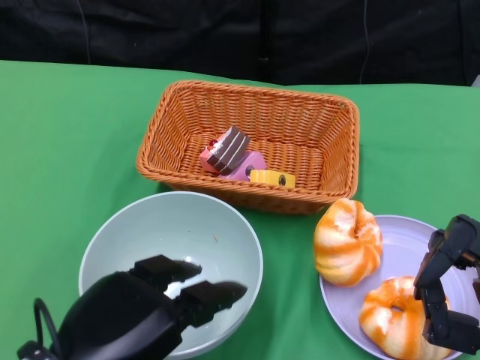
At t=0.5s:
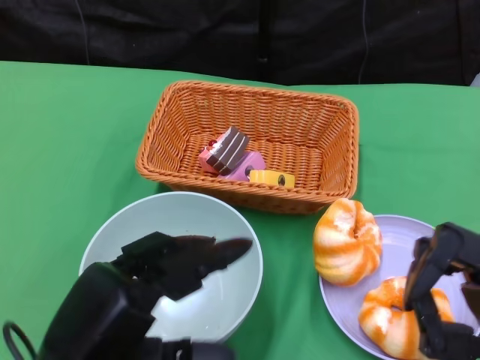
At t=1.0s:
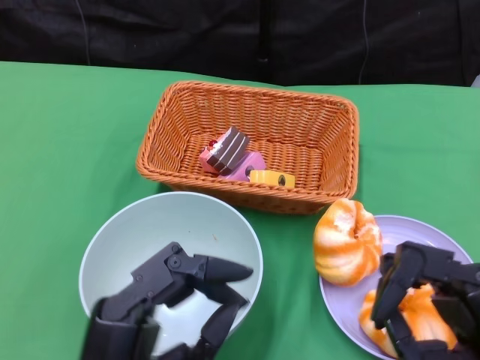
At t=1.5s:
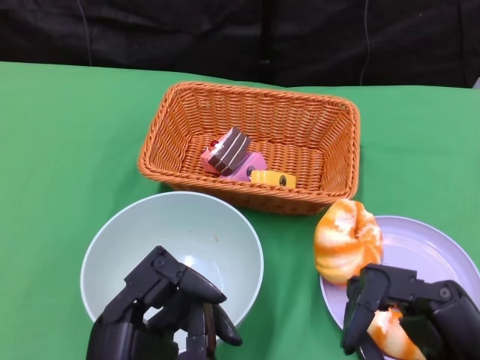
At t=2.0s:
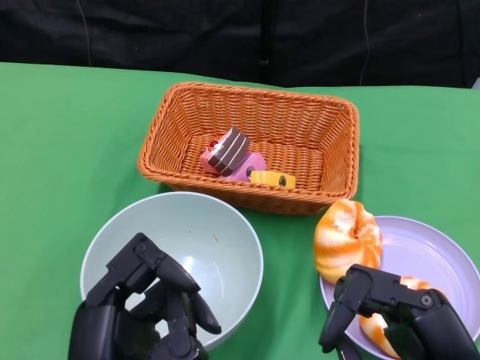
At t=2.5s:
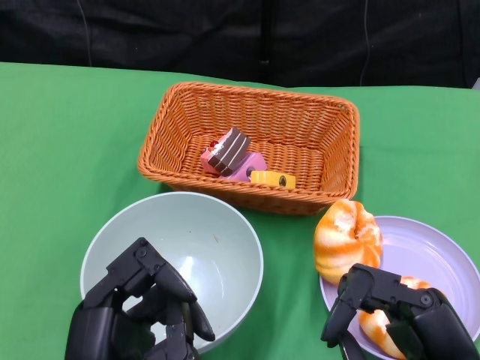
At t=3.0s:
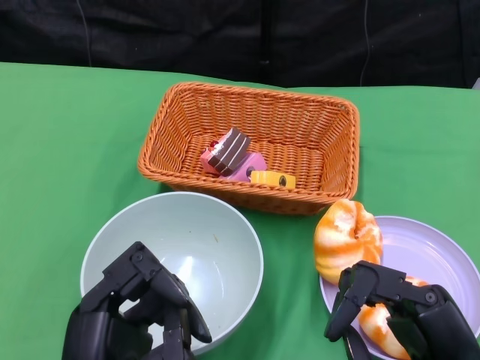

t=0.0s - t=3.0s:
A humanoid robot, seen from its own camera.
t=0.0s - t=1.5s: The left hand shifts roughly 5 cm to the right.
t=1.5s - t=3.0s: The hands move only a little.

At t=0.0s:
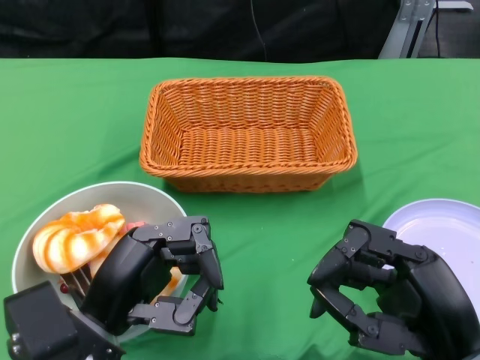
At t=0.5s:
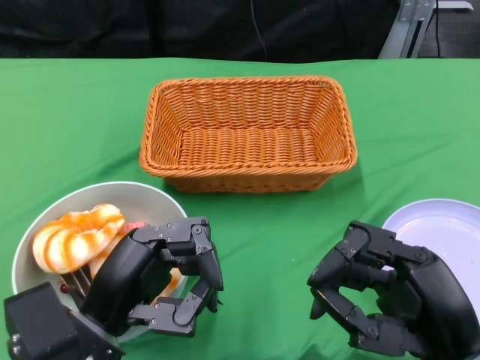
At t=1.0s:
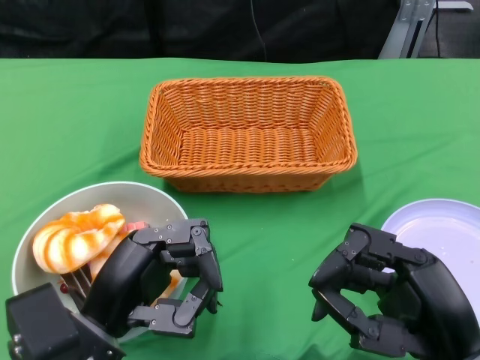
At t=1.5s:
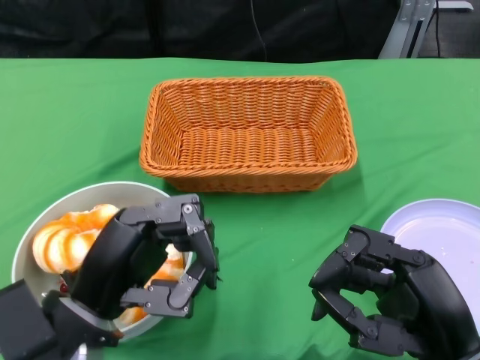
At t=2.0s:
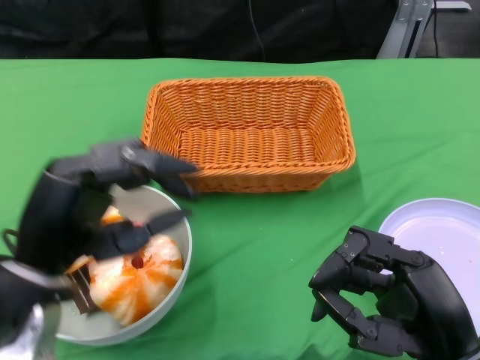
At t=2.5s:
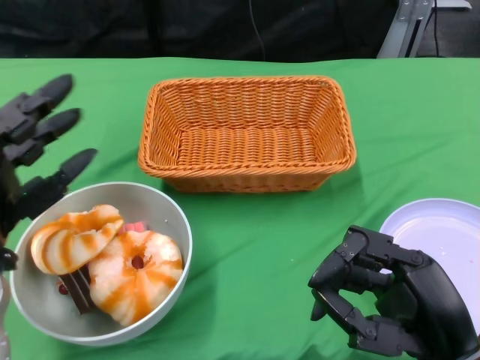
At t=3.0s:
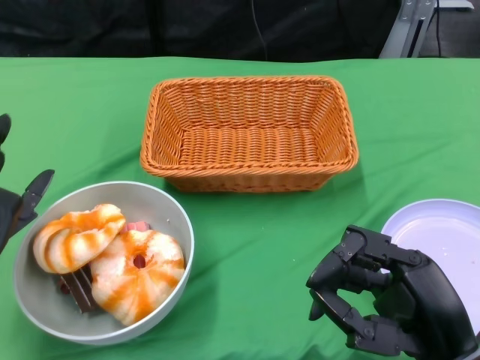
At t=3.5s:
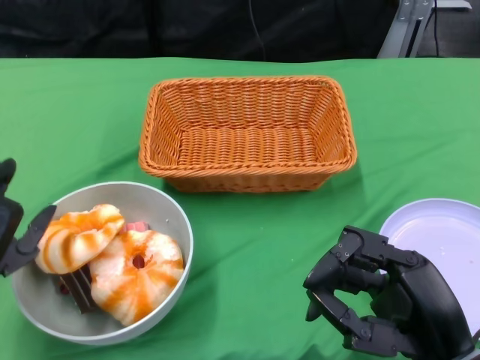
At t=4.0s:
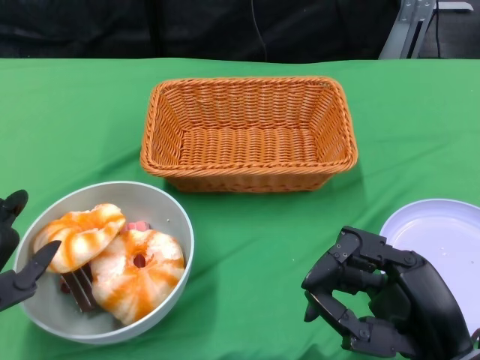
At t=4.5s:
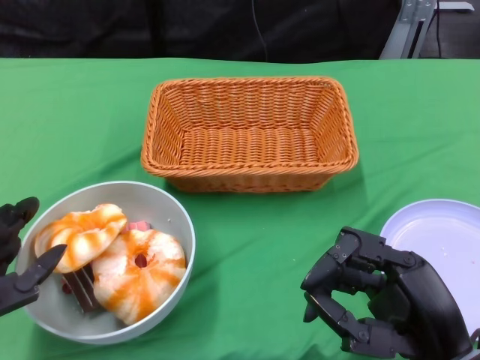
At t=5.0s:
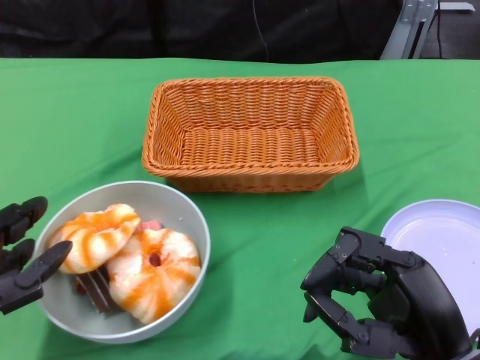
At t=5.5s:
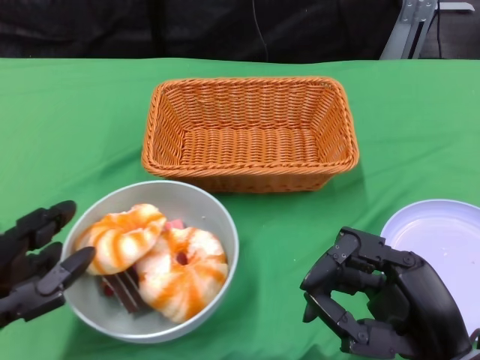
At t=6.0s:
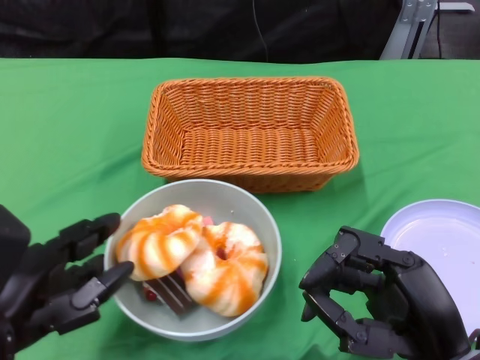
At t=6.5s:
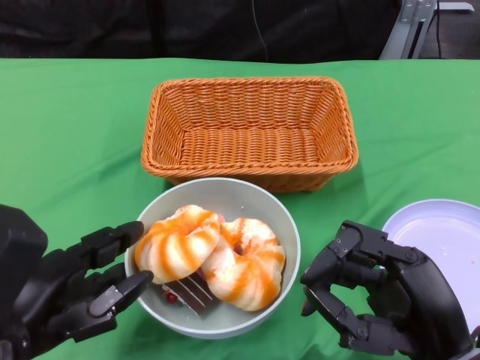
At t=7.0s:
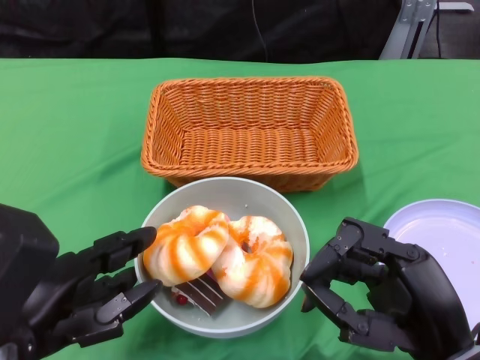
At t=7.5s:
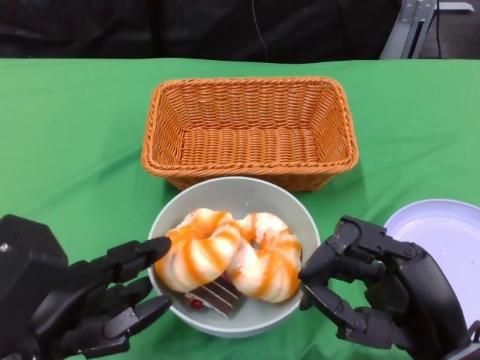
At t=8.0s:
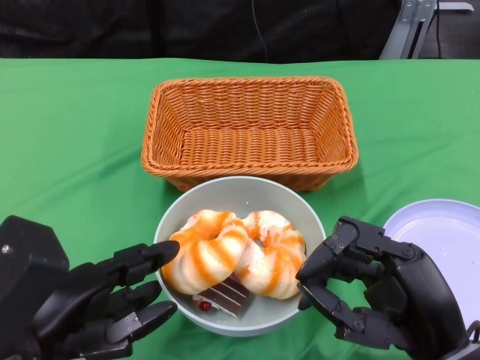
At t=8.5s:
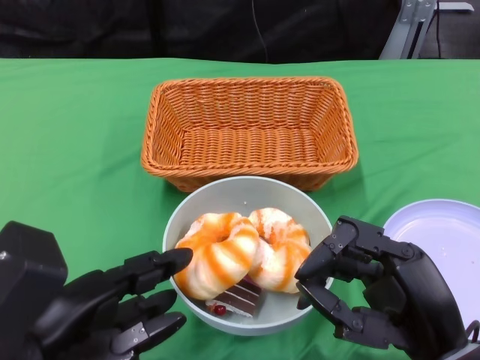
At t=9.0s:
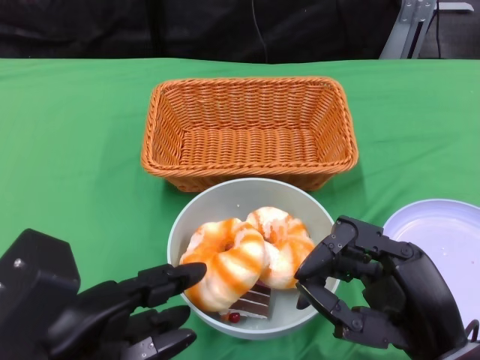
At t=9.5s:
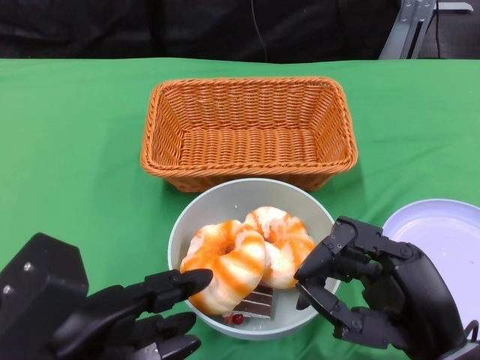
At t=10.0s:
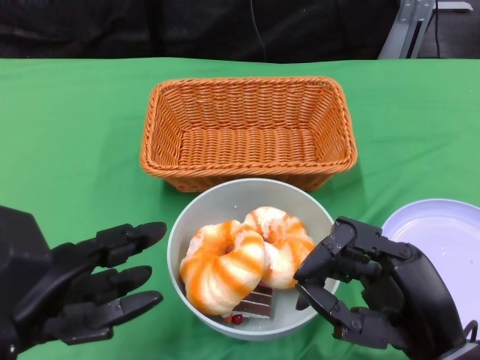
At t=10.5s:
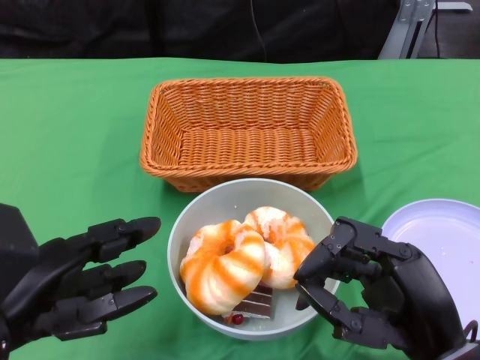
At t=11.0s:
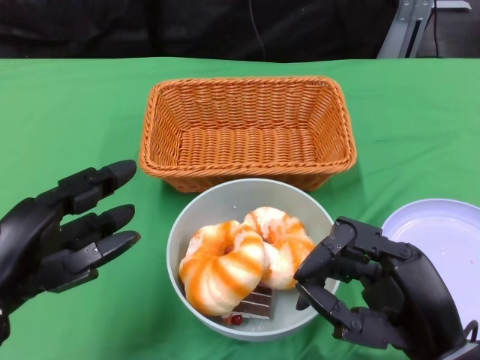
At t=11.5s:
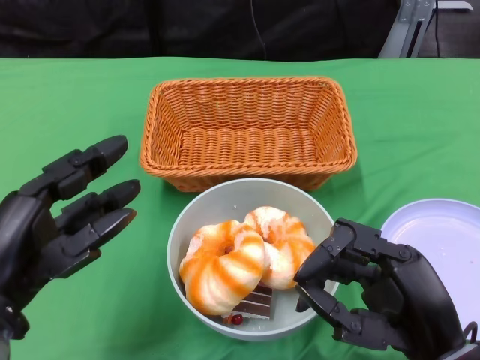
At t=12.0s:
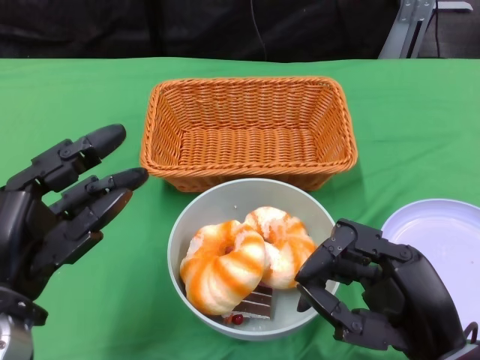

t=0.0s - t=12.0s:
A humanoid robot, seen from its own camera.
Step, t=0.0s - t=10.0s: Push the bowl to the center of the table using the left gripper.
t=2.0s - t=4.0s: The left hand moves to the left, roughly 5 cm.
t=8.0s - t=10.0s: There are only small adjustments of the hands.

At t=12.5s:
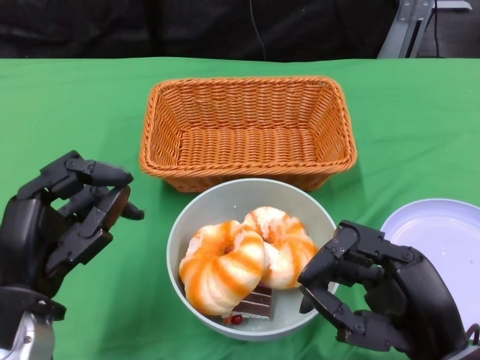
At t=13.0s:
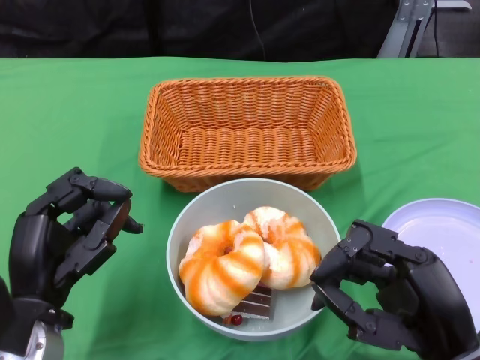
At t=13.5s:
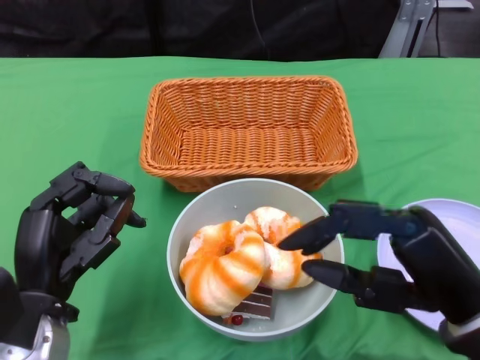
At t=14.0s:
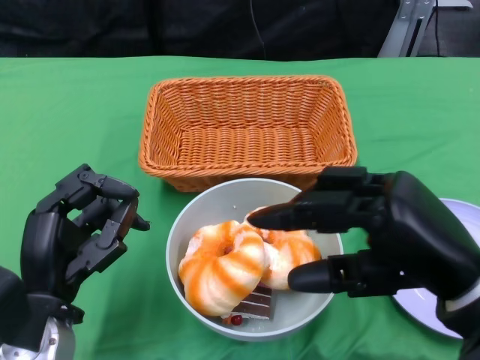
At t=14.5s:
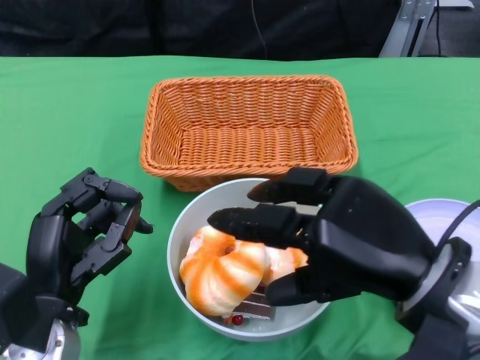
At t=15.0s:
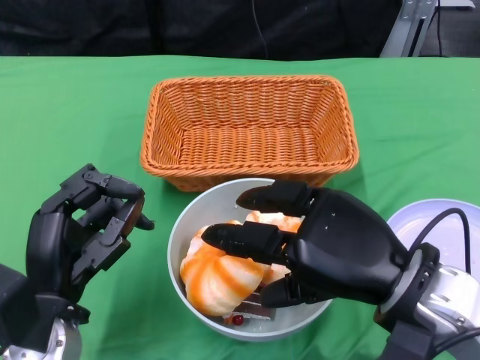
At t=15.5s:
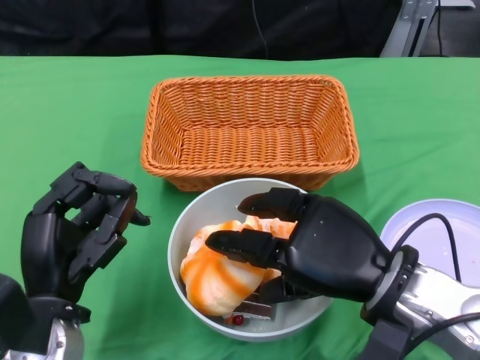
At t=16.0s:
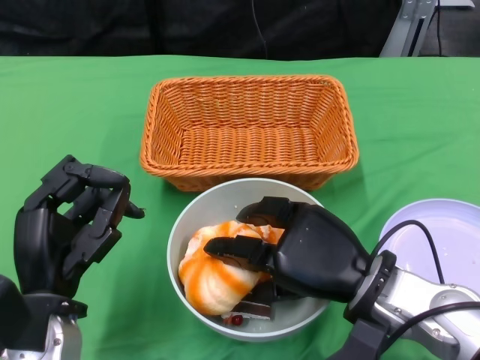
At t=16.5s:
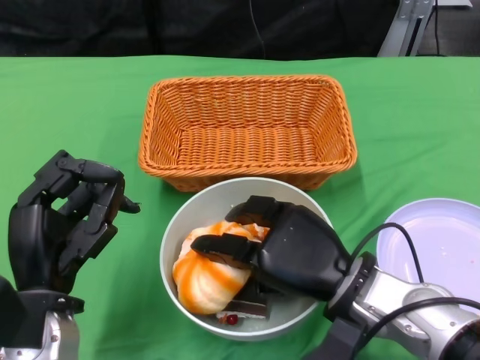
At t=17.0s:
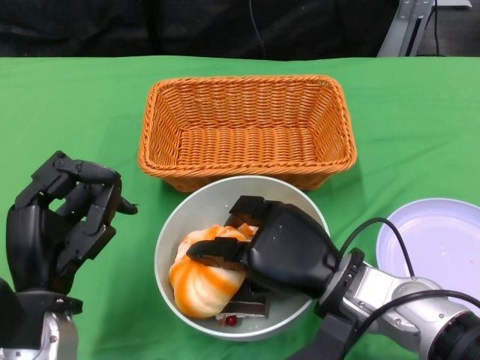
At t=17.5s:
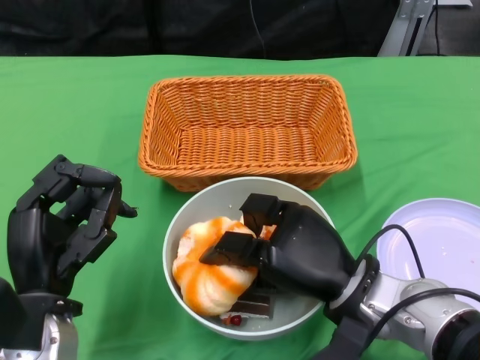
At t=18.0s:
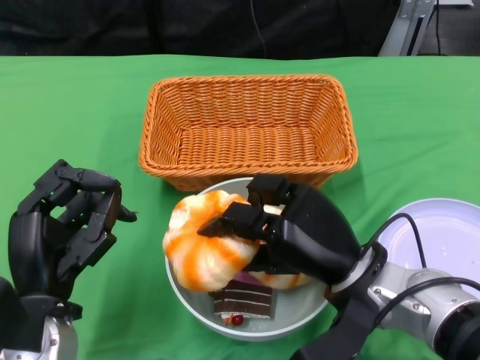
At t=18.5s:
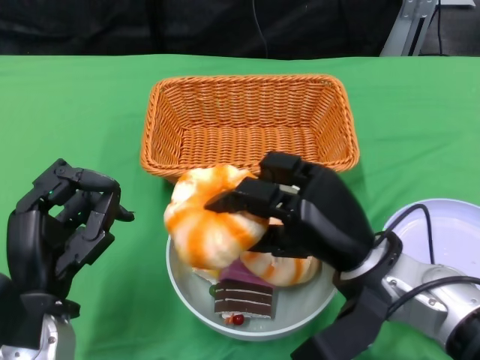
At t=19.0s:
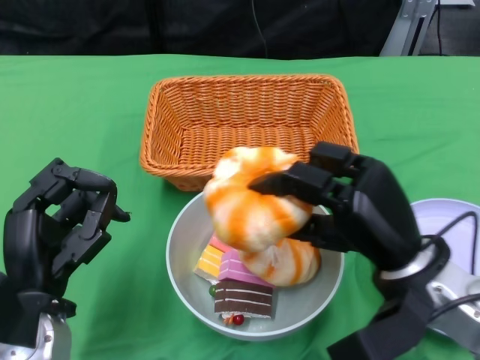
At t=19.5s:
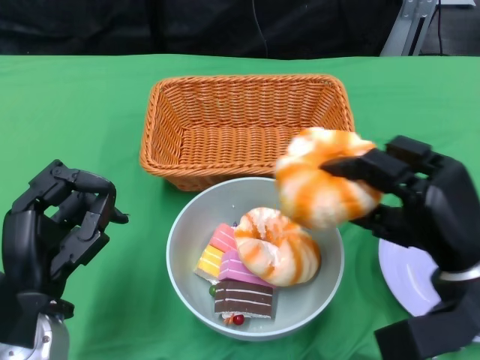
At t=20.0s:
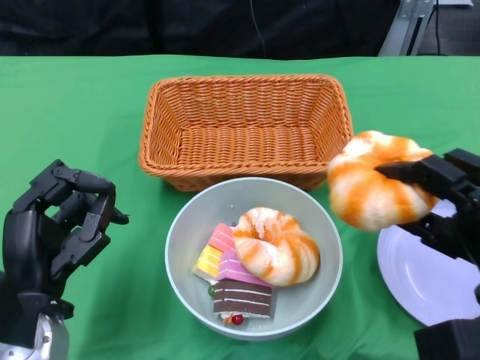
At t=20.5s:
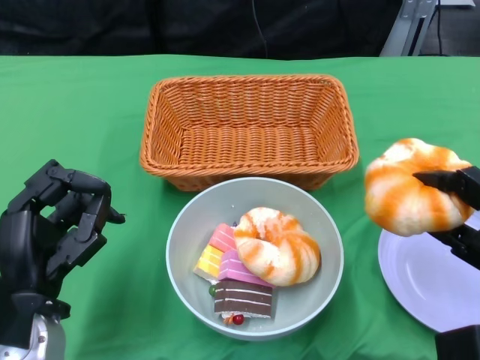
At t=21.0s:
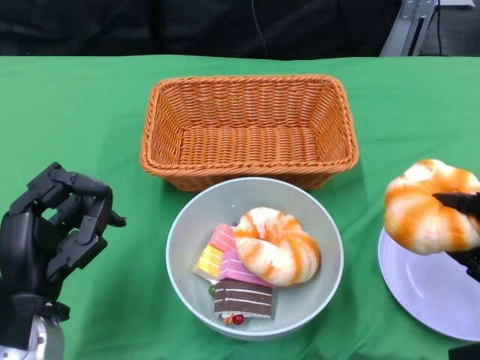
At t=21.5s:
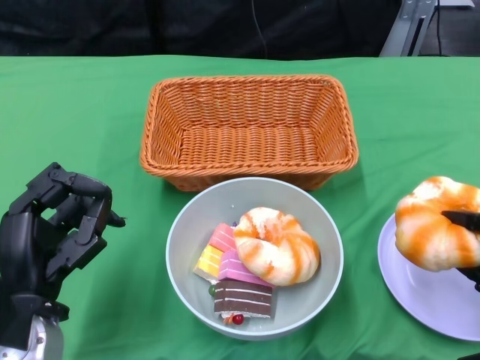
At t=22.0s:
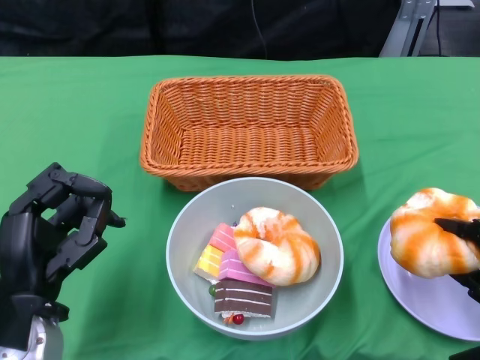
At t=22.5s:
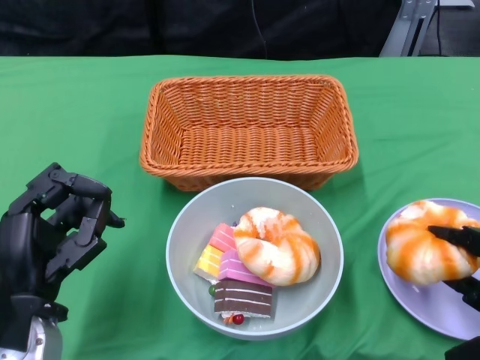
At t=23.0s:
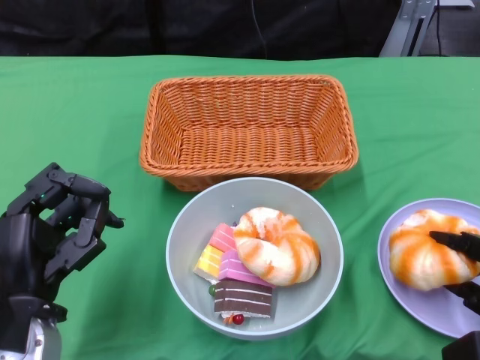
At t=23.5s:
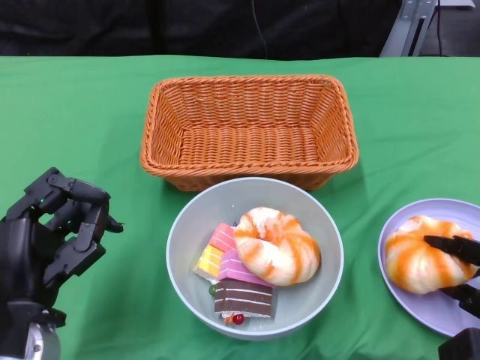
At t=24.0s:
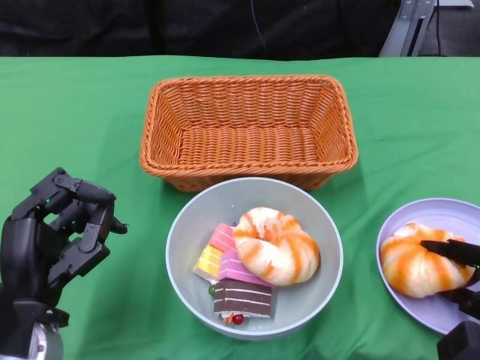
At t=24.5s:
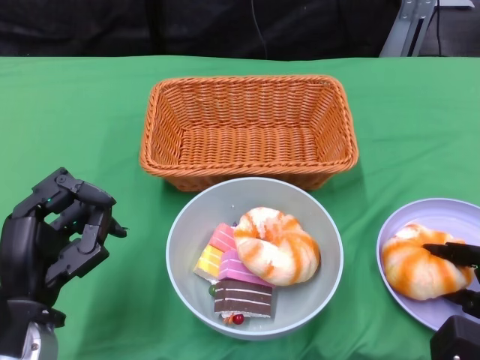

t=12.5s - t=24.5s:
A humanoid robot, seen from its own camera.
t=12.5s - t=14.5s: The right hand moves upward, about 5 cm.
t=14.5s - t=16.5s: The right hand travels downward and to the left by roughly 10 cm.
t=18.5s - t=20.5s: The right hand shifts about 15 cm to the right.
t=20.5s - t=22.5s: The right hand goes some 5 cm downward.
t=22.5s - t=24.5s: The hands make only small movements.
